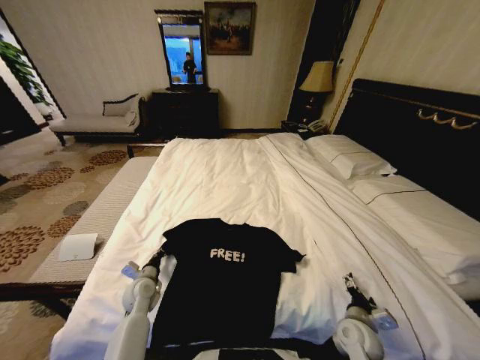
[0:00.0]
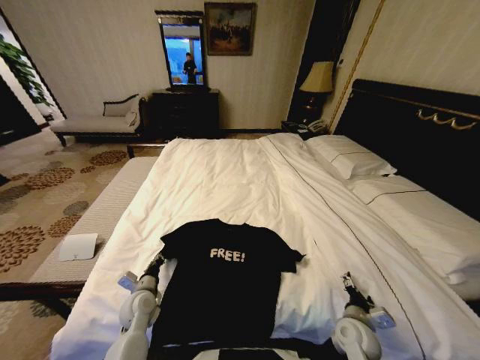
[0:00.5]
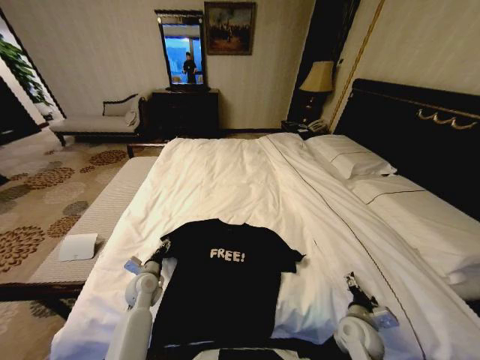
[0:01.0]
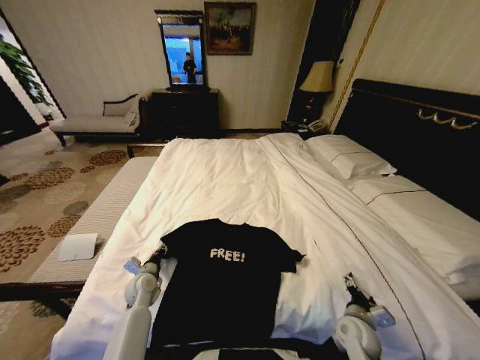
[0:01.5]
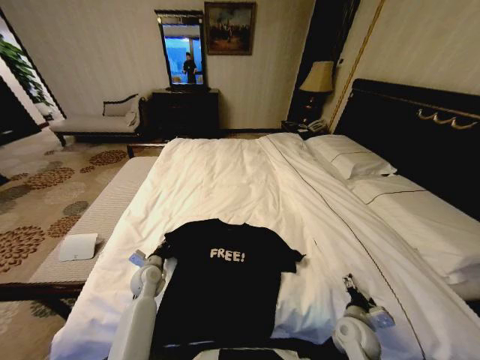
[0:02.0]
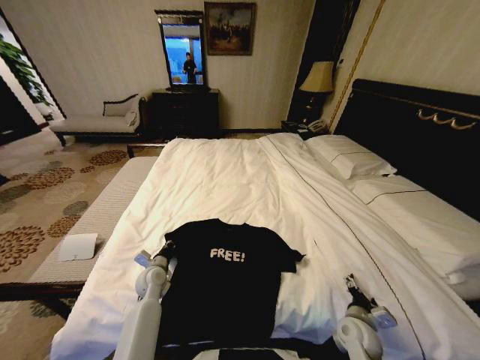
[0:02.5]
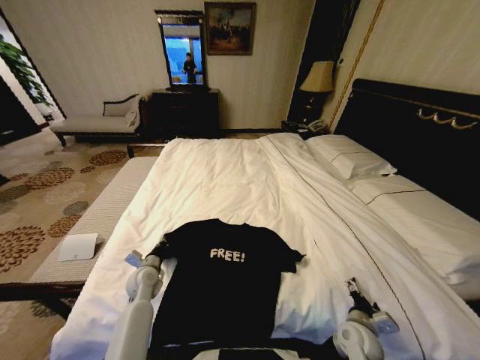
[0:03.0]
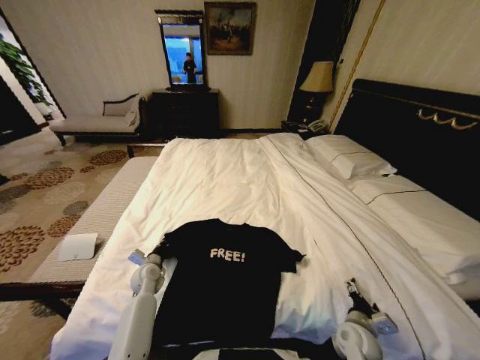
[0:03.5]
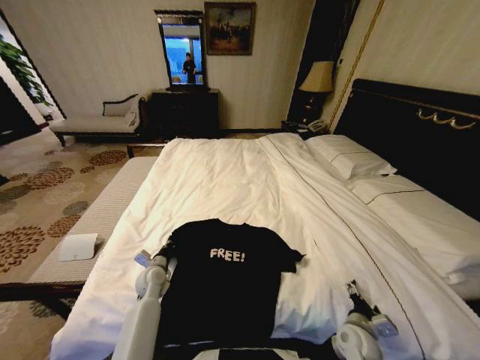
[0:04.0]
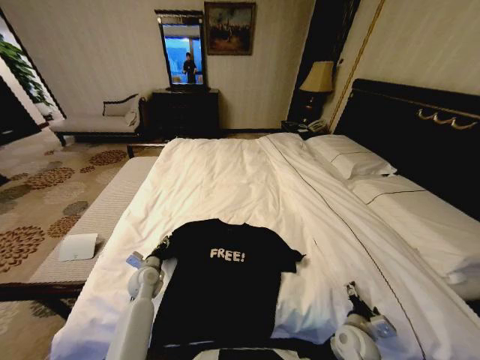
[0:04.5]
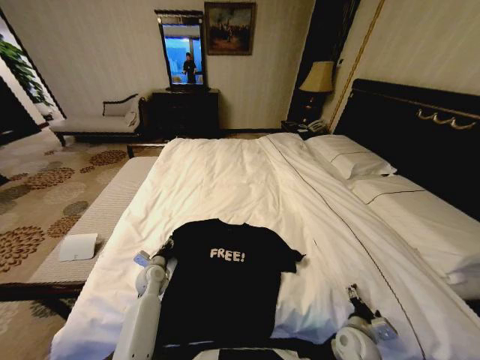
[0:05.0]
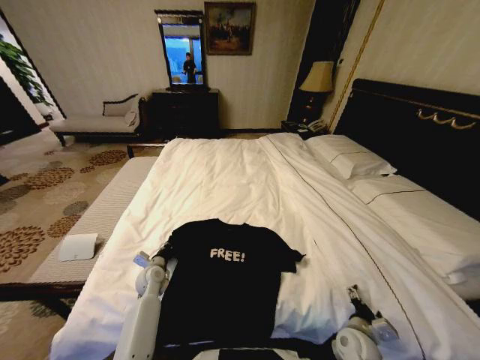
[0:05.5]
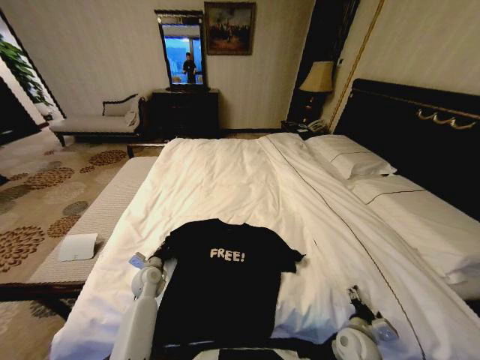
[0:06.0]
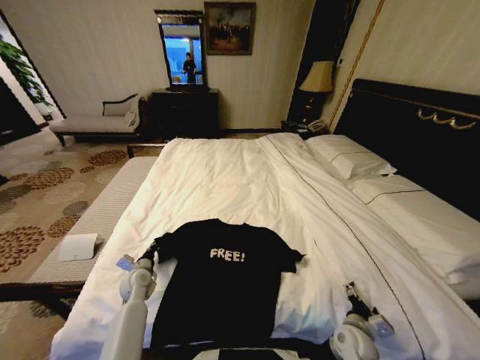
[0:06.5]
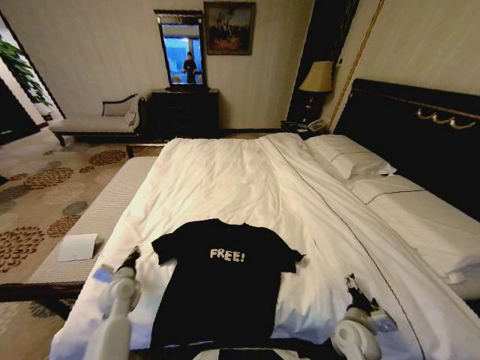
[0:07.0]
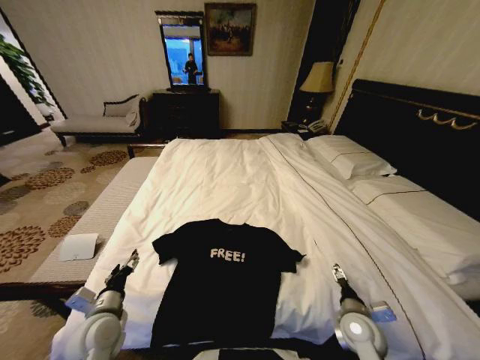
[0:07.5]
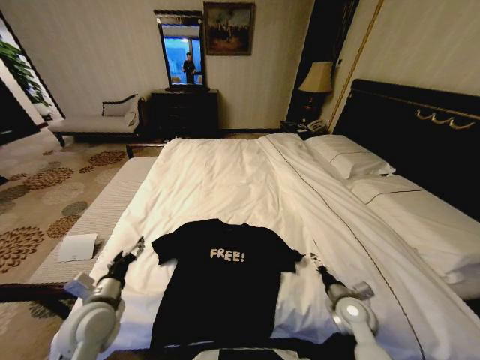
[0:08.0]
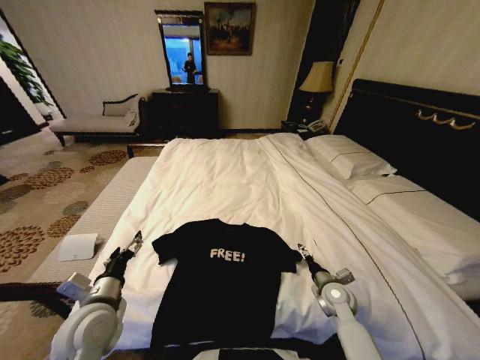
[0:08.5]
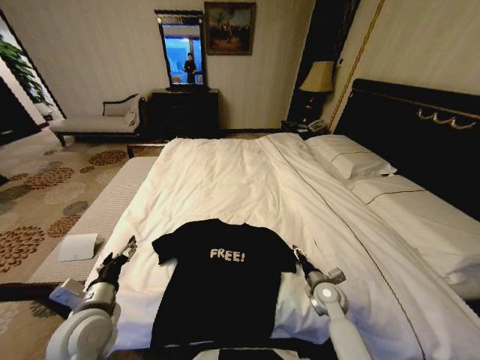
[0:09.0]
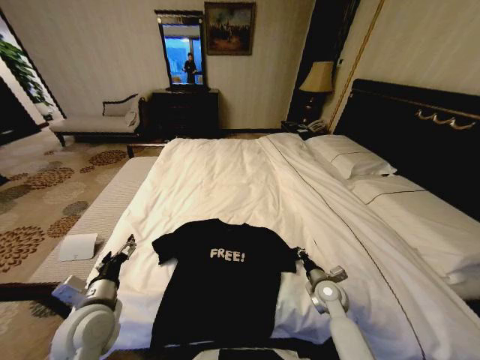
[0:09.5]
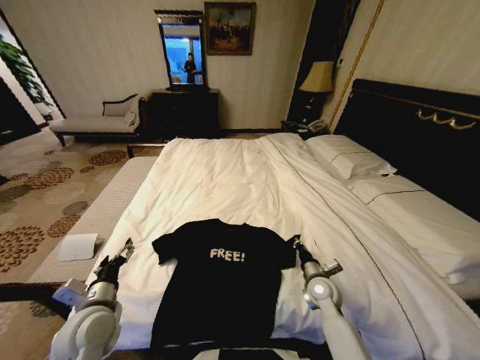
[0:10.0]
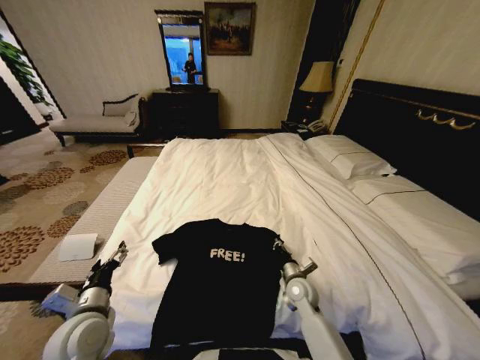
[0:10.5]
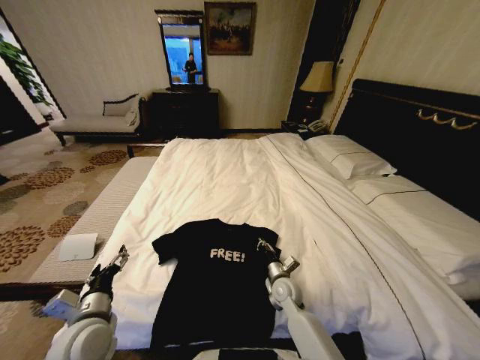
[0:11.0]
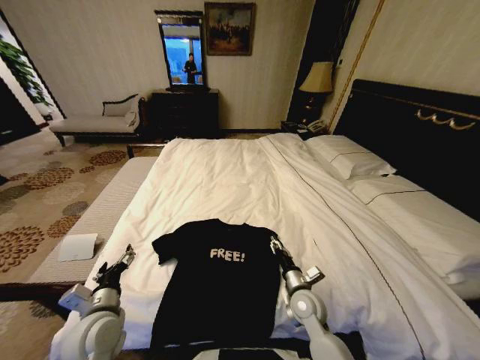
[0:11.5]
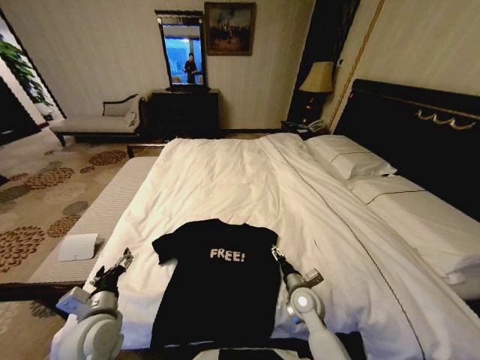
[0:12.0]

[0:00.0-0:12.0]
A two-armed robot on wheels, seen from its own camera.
Task of the whole recording: Fold the clothes on the bed.
0:00.0 to 0:02.0: The left gripper opens, then closes once more.
0:02.0 to 0:04.0: The grippers make only small movements.
0:04.0 to 0:06.0: The left gripper opens and closes again.
0:06.0 to 0:08.0: The left gripper is displaced backward and upward by approximately 20 cm, and opens its fingers, while the right gripper travels forward and upward by roughly 10 cm.
0:08.0 to 0:10.0: The right gripper heads forward and to the left, covering roughly 10 cm, and closes its fingers.
0:10.0 to 0:12.0: The right gripper is displaced to the left by approximately 5 cm, and opens.

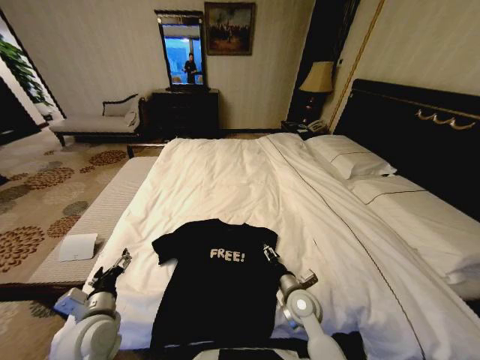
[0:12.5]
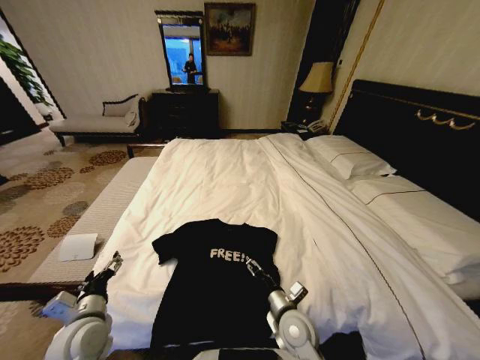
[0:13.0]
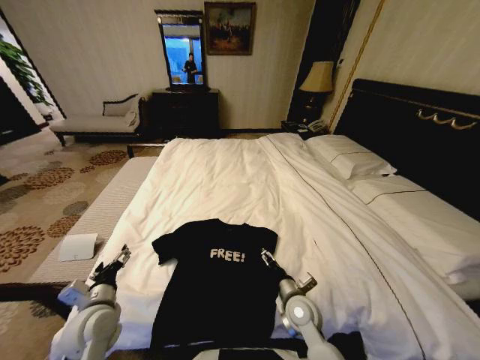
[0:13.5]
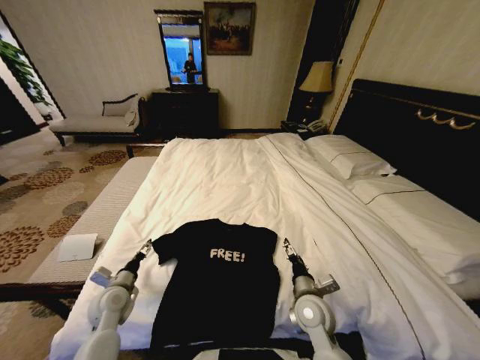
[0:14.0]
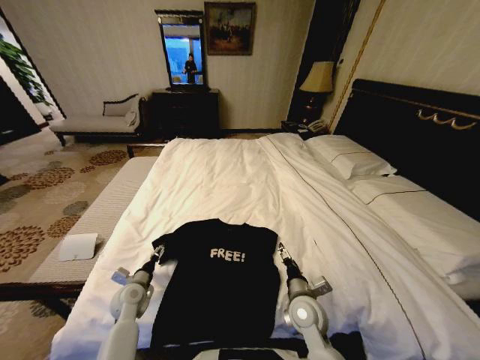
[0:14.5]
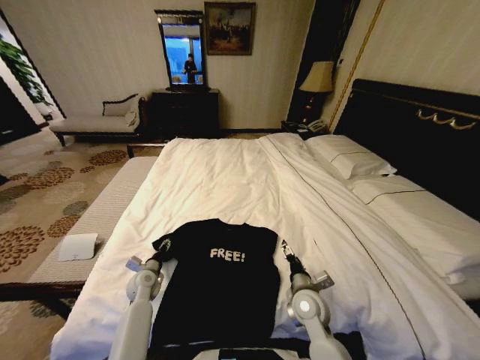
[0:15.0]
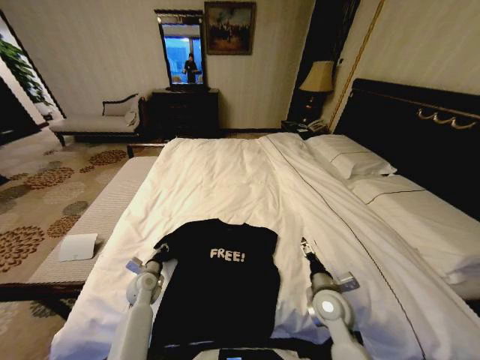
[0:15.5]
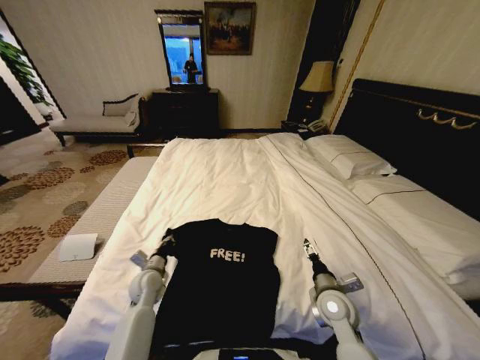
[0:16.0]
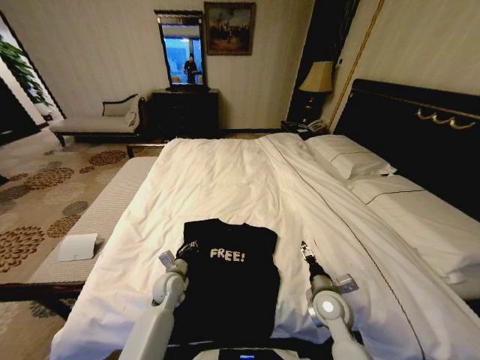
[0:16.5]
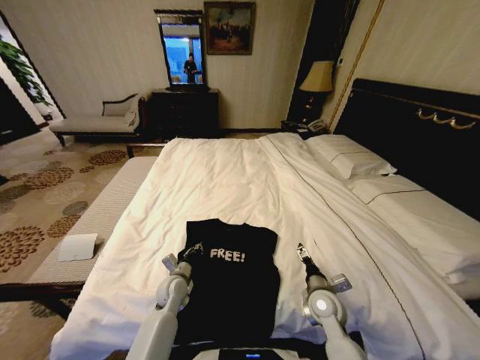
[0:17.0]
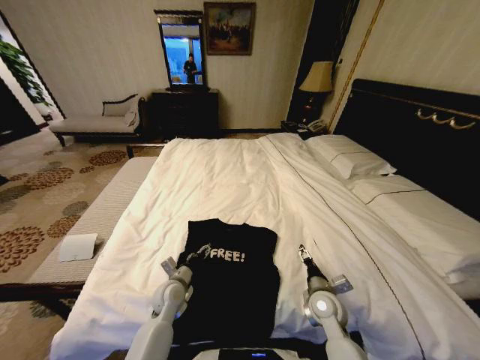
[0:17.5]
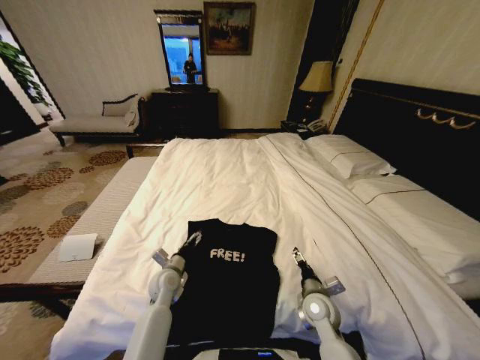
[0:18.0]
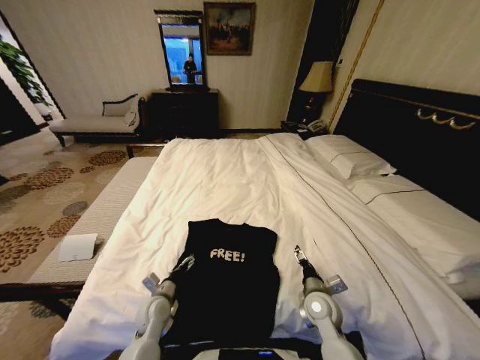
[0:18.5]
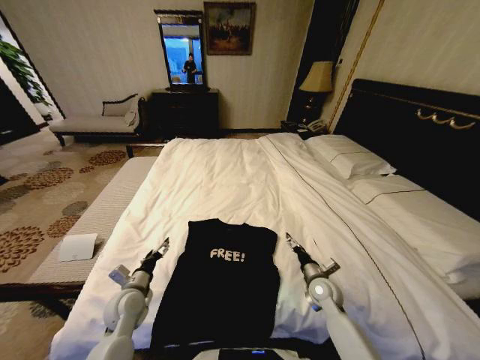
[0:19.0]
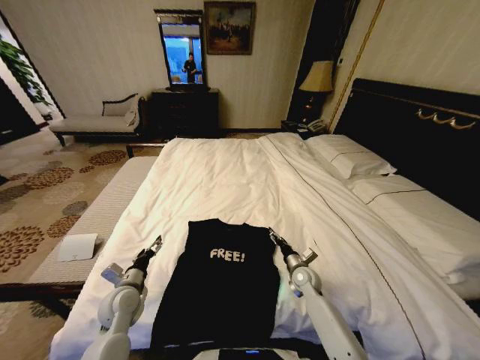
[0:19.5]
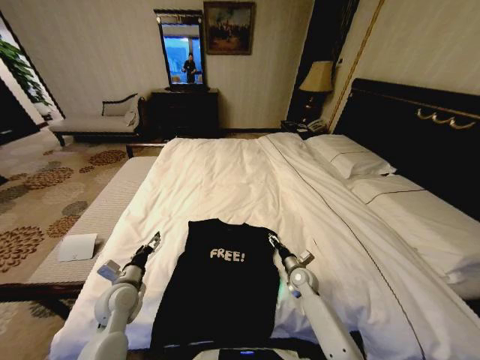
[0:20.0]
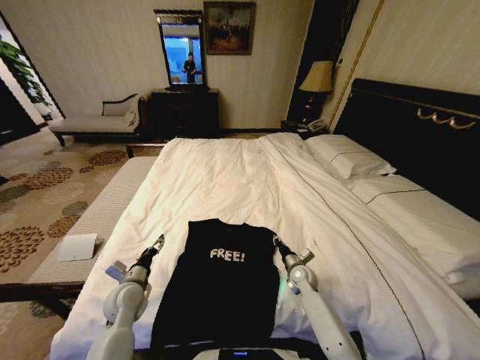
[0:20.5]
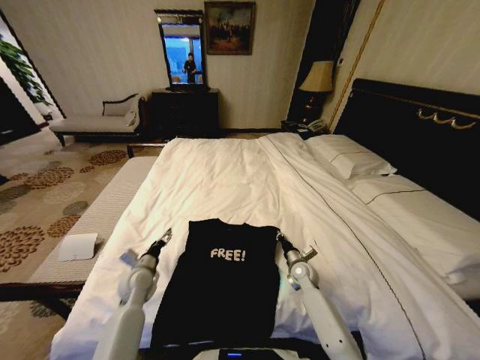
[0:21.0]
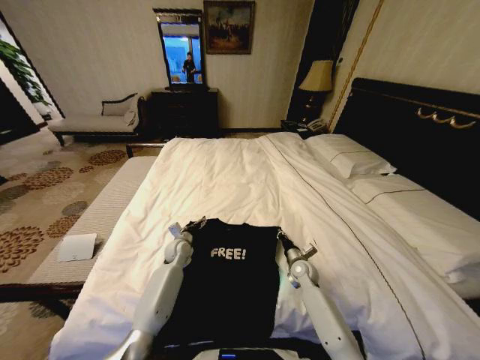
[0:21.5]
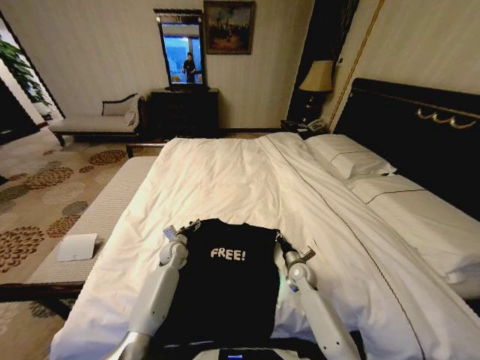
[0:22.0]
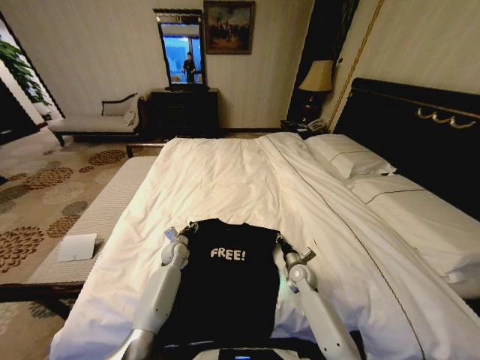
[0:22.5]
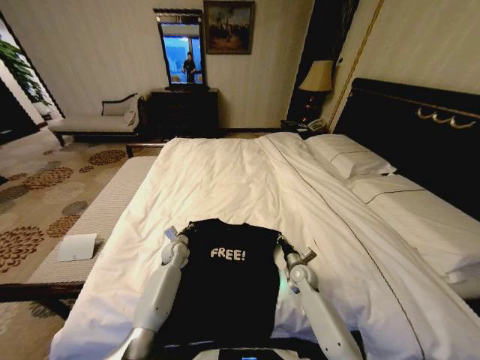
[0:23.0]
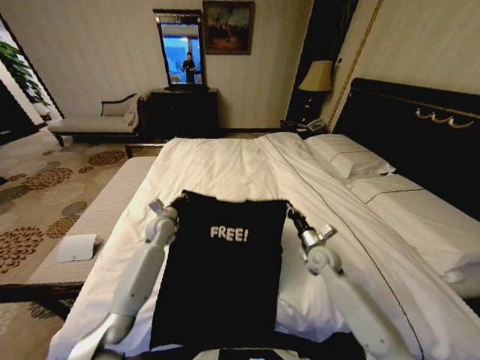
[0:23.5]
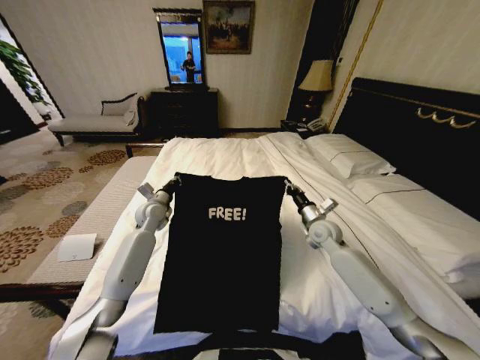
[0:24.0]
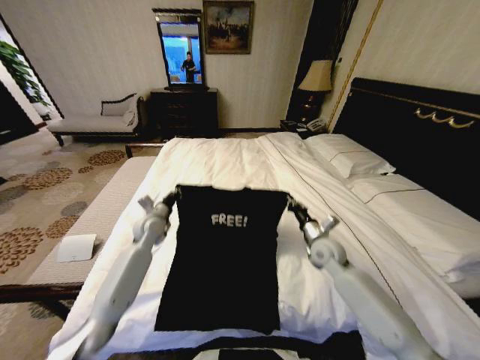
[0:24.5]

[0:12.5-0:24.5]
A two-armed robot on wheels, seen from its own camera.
Task of the whole recording: Fold the clothes on the bed.
0:12.5 to 0:14.5: The left gripper goes about 15 cm downward and forward.
0:14.5 to 0:16.5: The left gripper shifts some 10 cm to the right, and closes up. The right gripper travels to the right by roughly 5 cm.
0:16.5 to 0:18.5: The left gripper is displaced backward by roughly 5 cm, and opens its fingers.
0:18.5 to 0:20.5: The right gripper travels forward and downward by roughly 15 cm, and closes its fingers; the left gripper heads to the left and upward, covering some 10 cm.
0:20.5 to 0:22.5: The left gripper heads forward, to the right and downward, covering approximately 20 cm, and closes.
0:22.5 to 0:24.5: Both grippers travel together upward, roughly 15 cm. The left gripper closes.

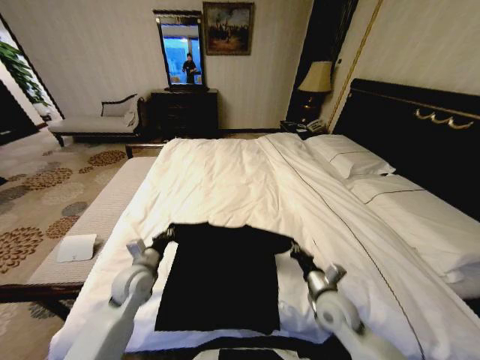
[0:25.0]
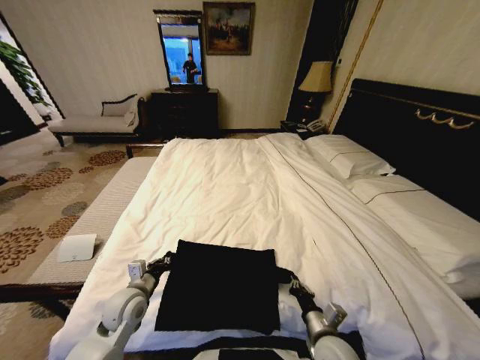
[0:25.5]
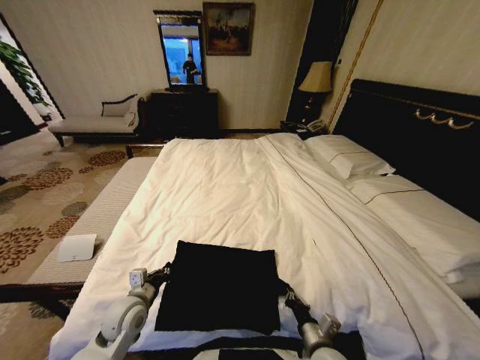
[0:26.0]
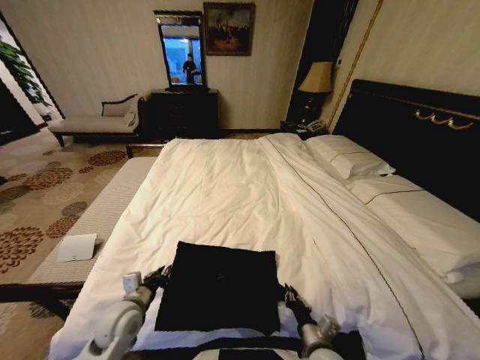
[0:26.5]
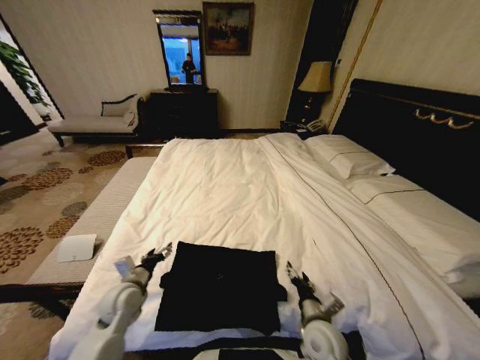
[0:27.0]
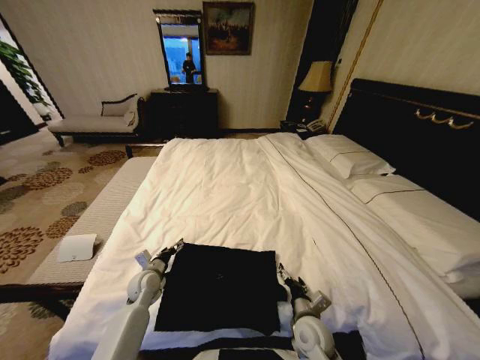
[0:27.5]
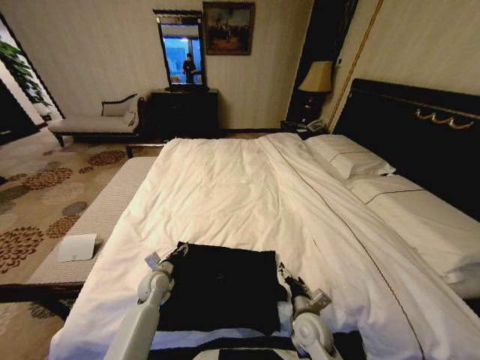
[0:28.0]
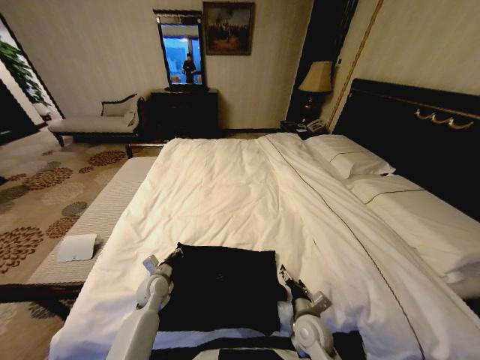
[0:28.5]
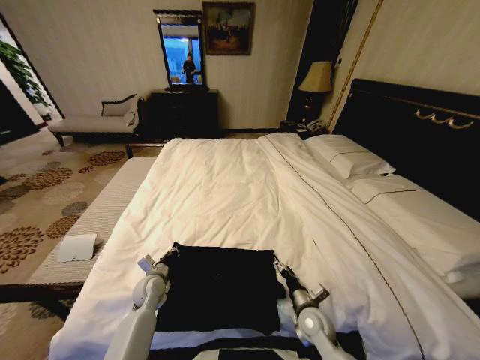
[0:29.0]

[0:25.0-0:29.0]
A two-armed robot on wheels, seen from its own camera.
Task of the whole recording: Fold the clothes on the bed.
0:25.0 to 0:27.0: The right gripper travels backward by approximately 5 cm, and opens. The left gripper opens.
0:27.0 to 0:29.0: The right gripper travels downward by roughly 5 cm. The left gripper heads downward and forward, covering some 10 cm, and closes up.
